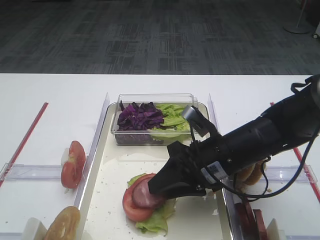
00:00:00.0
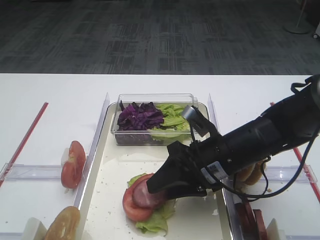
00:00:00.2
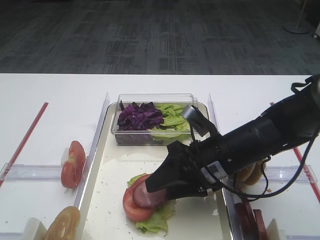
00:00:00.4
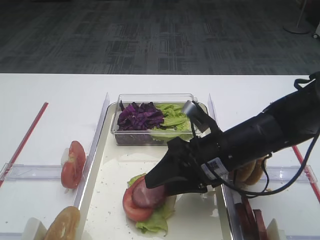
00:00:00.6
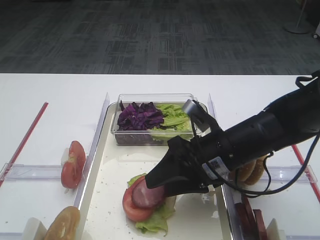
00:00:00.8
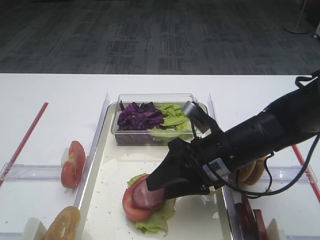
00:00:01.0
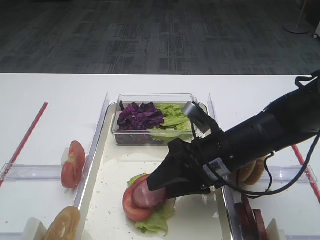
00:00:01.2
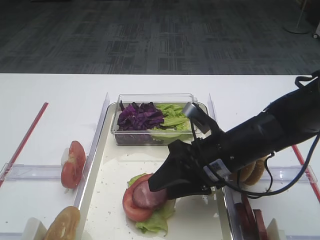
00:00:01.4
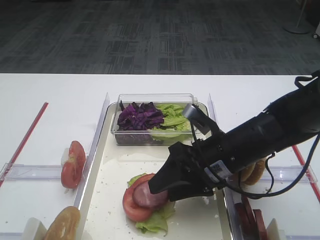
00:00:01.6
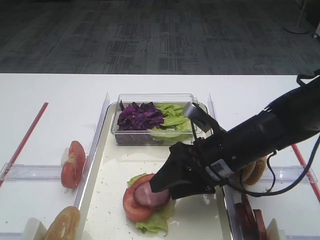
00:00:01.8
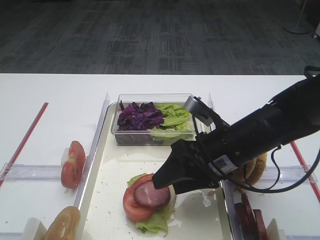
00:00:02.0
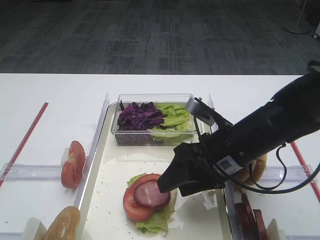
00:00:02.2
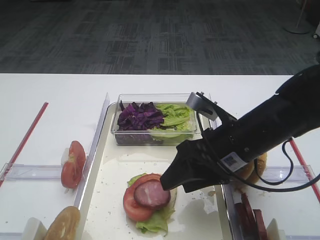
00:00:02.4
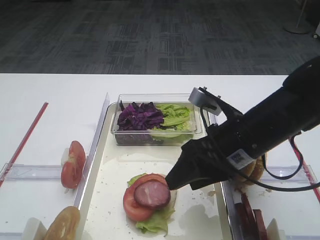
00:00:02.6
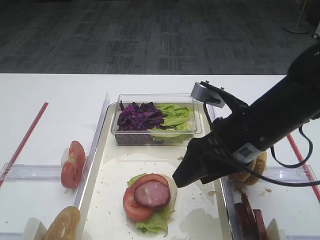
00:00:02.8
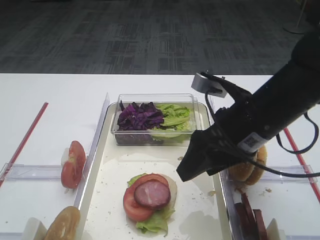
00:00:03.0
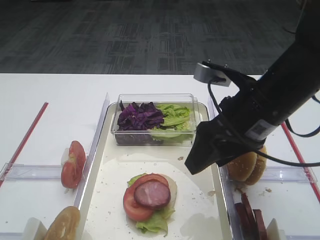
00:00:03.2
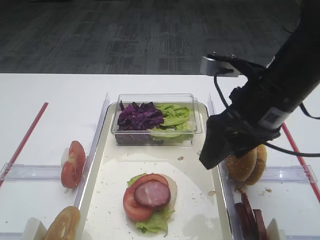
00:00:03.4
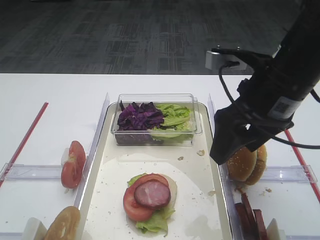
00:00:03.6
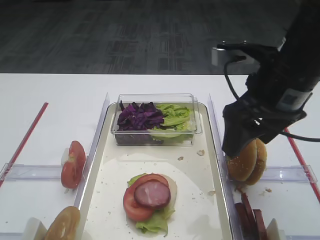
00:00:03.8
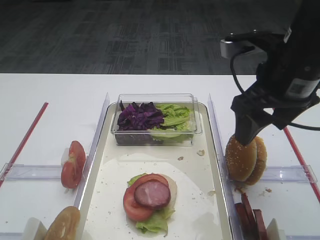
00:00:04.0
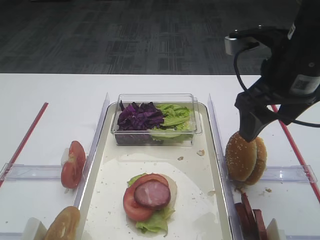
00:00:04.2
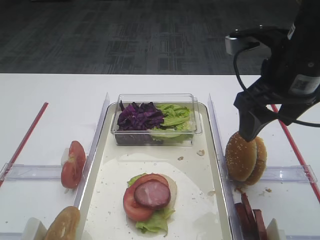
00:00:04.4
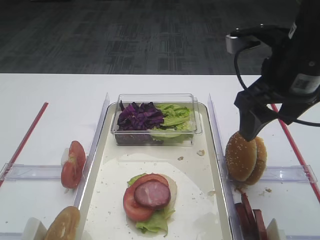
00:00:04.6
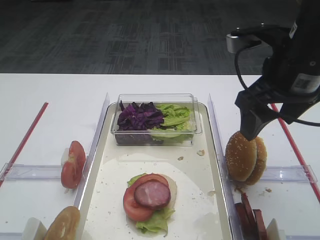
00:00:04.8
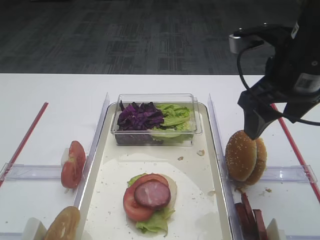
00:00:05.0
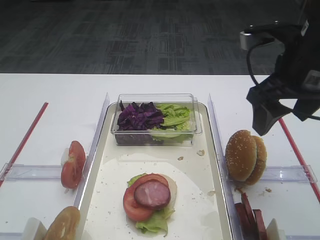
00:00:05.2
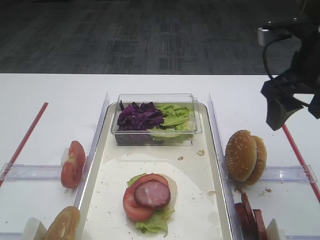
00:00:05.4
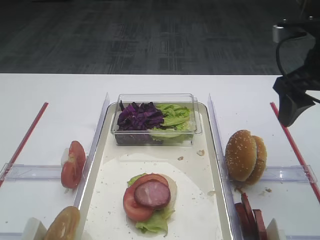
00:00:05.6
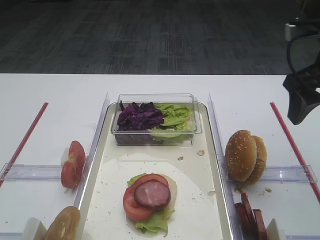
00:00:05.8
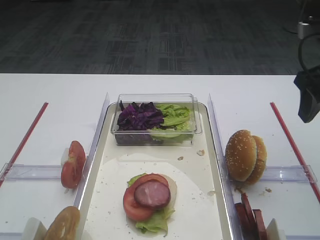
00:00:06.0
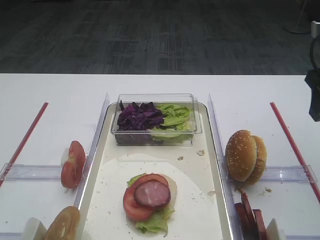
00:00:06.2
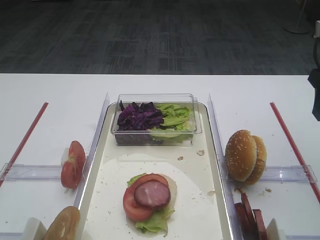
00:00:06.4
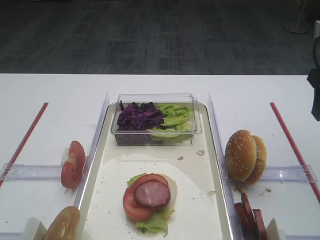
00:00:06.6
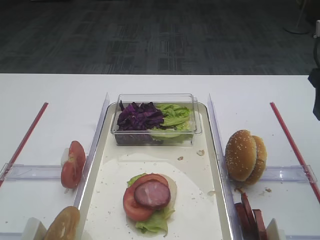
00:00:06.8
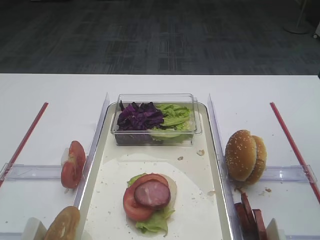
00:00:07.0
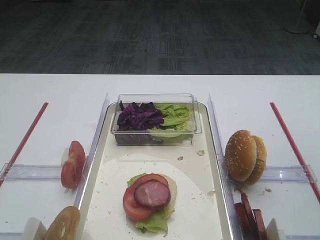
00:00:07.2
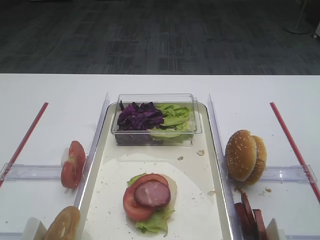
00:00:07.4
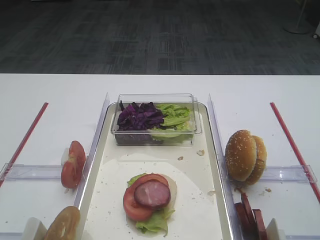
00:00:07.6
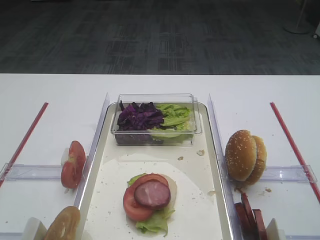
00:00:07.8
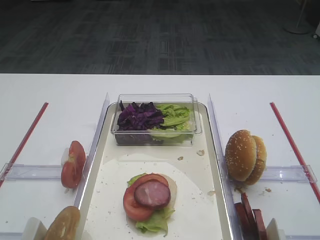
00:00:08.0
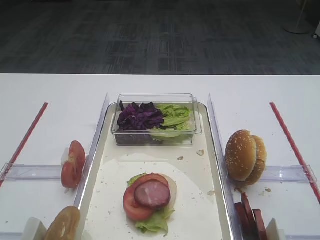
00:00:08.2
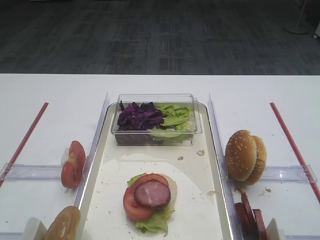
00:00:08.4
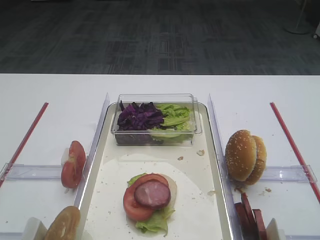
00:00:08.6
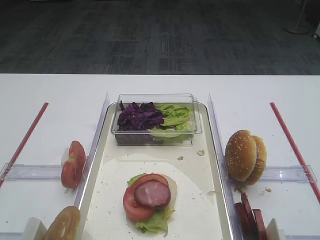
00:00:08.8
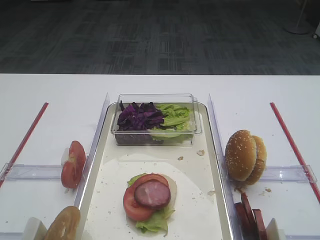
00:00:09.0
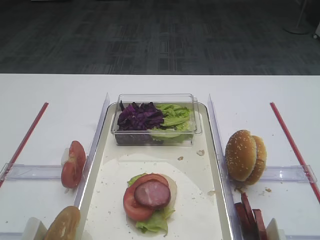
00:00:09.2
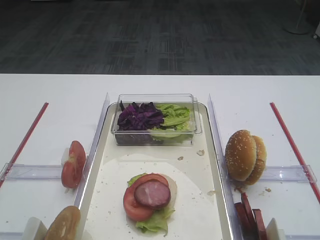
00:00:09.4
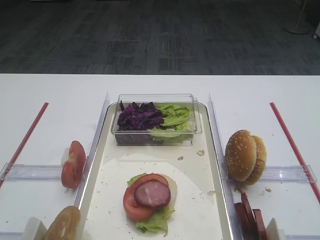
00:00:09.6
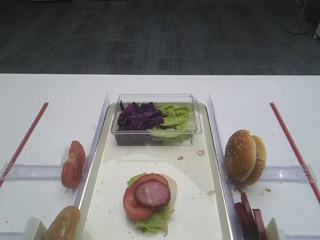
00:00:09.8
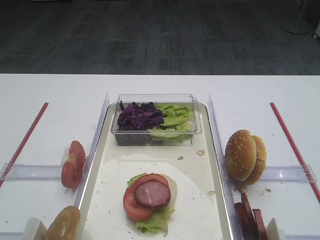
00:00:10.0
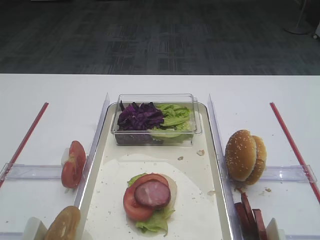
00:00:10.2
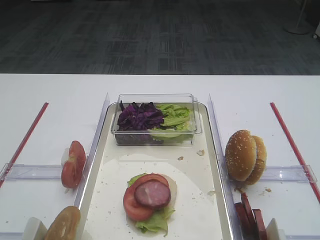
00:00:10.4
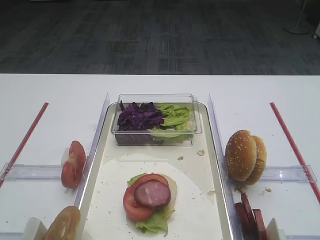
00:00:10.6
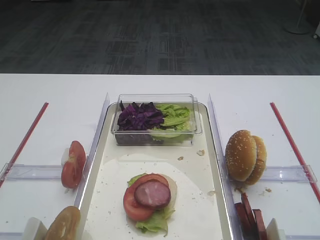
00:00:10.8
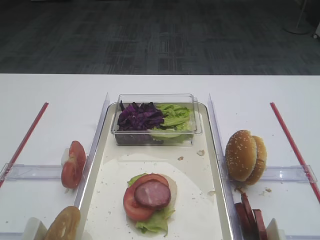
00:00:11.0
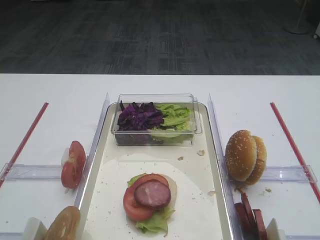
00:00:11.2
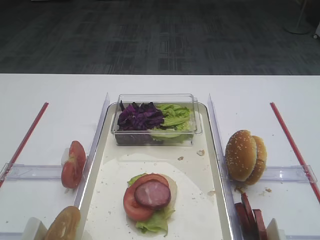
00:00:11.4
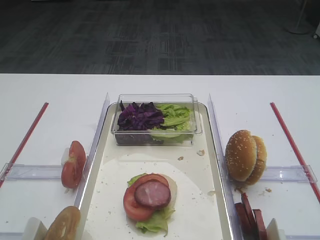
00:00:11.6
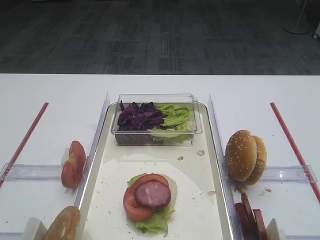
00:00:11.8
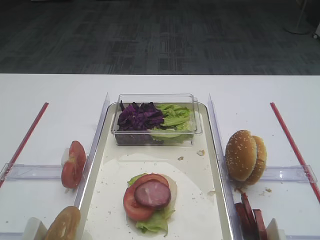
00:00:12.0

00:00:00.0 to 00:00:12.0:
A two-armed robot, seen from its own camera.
Step, 00:00:00.0 to 00:00:02.2: Place the cutlet on the tomato slice with the right gripper.
00:00:00.0 to 00:00:01.6: Both grippers stay about where they are.
00:00:01.6 to 00:00:03.0: The right gripper heads upward, covering some 10 cm.
00:00:03.0 to 00:00:04.4: The right gripper goes roughly 10 cm upward.
00:00:04.4 to 00:00:06.0: The right gripper goes roughly 10 cm to the right.
00:00:06.0 to 00:00:07.6: The right gripper goes roughly 10 cm backward.
00:00:10.4 to 00:00:12.0: The two grippers keep their place.

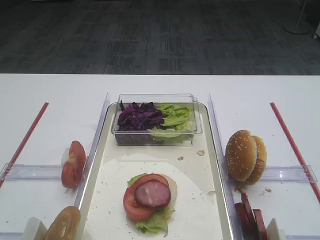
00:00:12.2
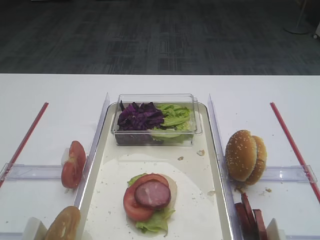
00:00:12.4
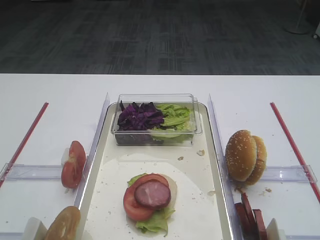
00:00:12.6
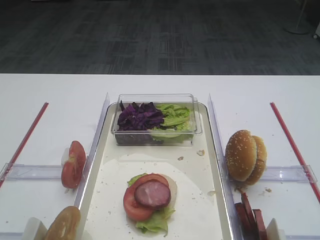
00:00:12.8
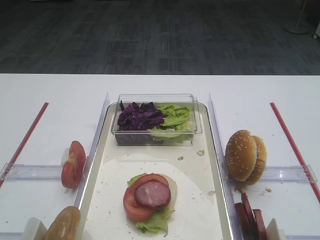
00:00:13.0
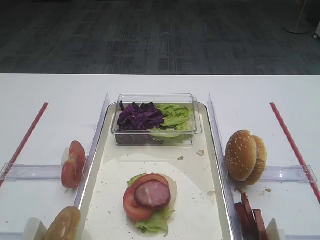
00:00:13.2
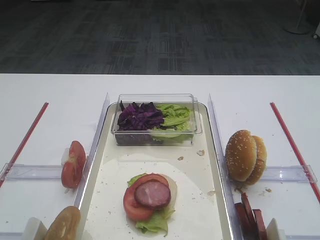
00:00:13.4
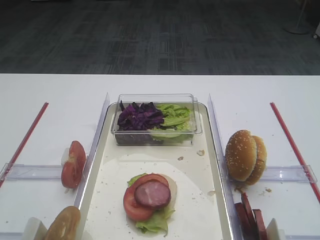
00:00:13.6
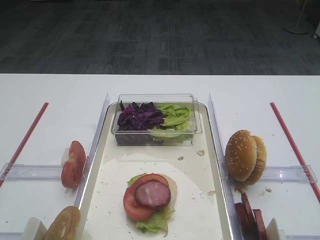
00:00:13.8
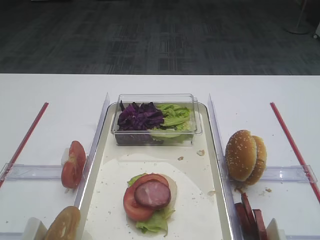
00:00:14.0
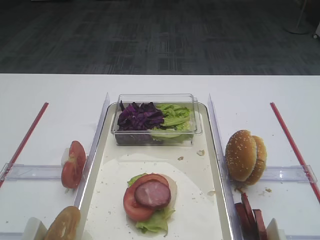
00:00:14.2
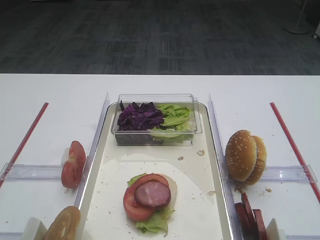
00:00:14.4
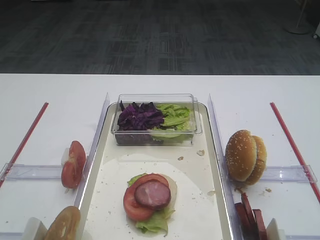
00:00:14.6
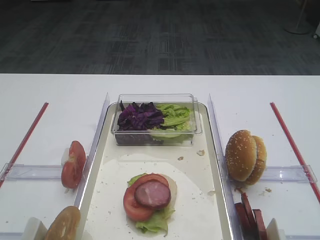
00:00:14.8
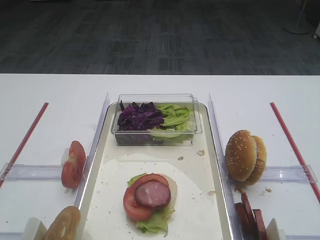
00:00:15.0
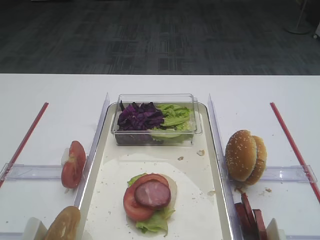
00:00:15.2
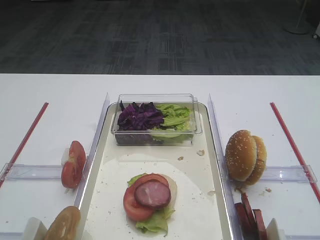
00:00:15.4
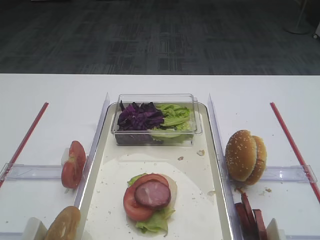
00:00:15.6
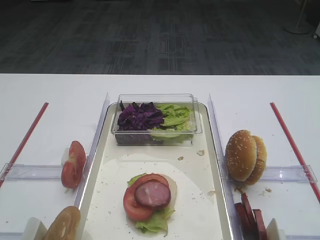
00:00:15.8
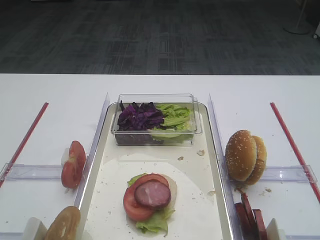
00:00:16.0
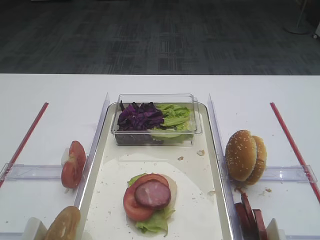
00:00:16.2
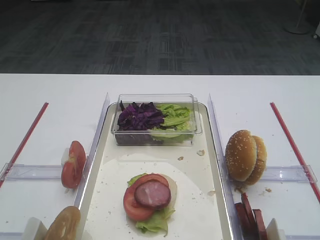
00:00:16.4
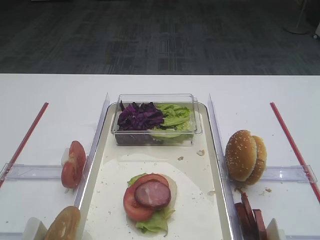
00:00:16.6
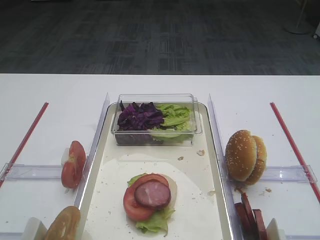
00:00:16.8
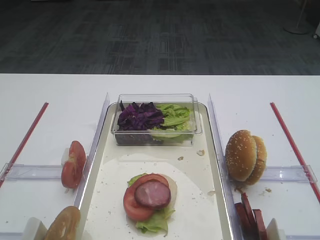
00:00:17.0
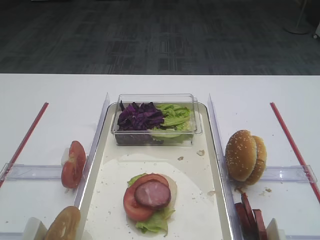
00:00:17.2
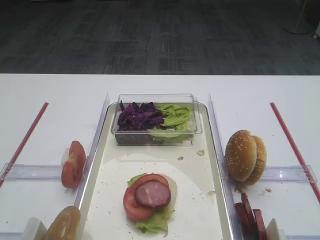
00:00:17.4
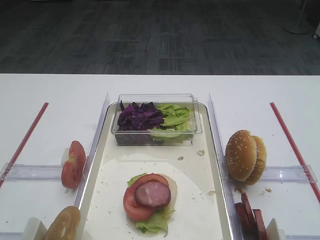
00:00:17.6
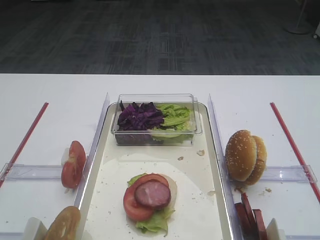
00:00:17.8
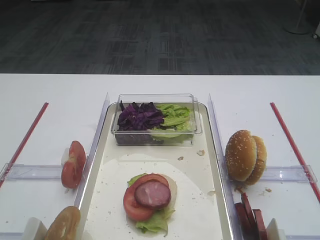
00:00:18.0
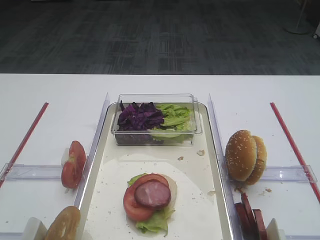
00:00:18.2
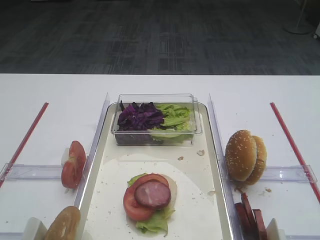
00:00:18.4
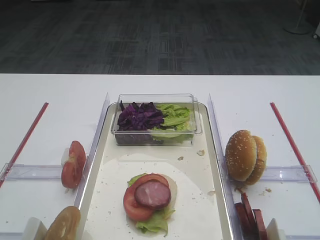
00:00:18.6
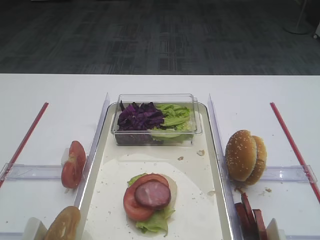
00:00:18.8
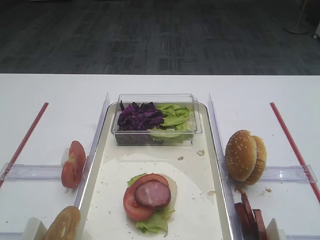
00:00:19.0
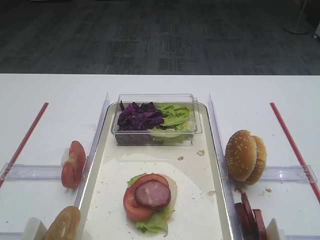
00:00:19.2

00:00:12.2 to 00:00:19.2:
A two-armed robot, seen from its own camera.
00:00:12.2 to 00:00:13.6: Both grippers stay put.
00:00:15.0 to 00:00:19.2: The two grippers keep their place.

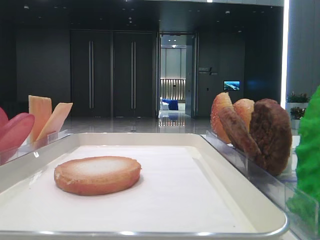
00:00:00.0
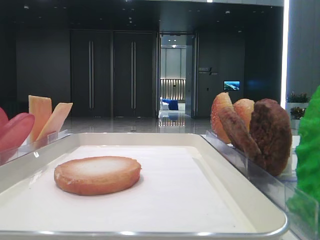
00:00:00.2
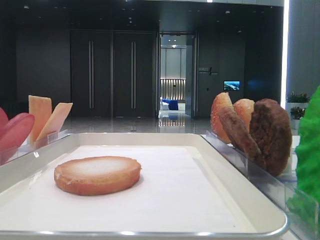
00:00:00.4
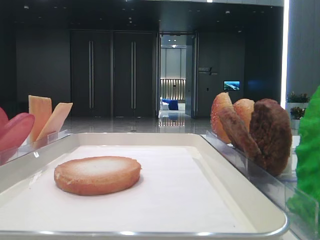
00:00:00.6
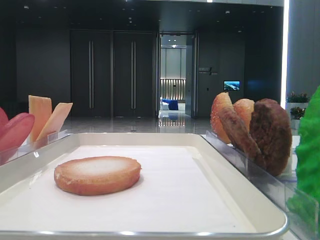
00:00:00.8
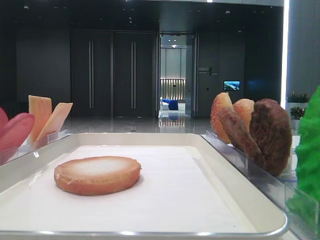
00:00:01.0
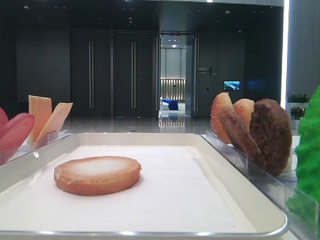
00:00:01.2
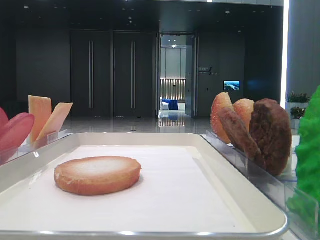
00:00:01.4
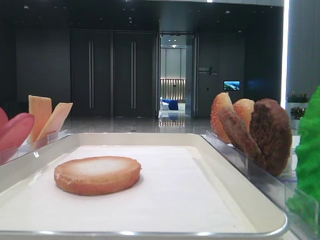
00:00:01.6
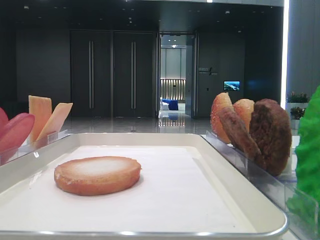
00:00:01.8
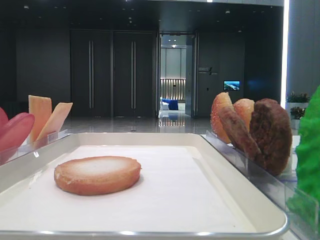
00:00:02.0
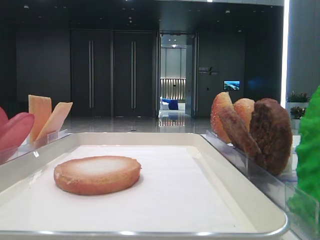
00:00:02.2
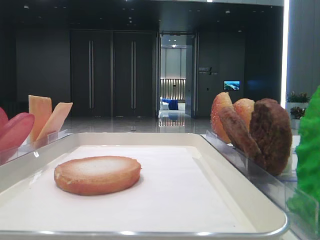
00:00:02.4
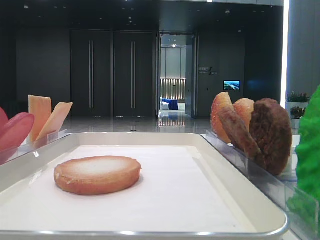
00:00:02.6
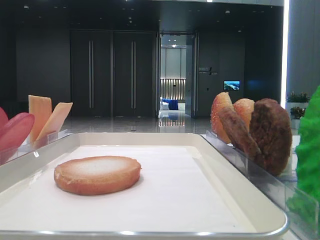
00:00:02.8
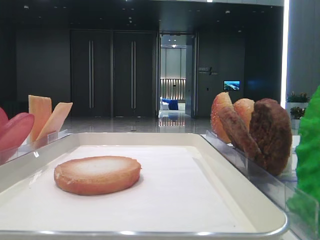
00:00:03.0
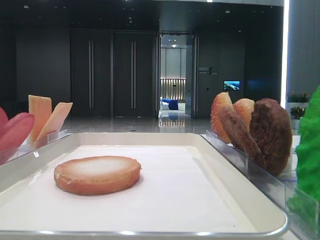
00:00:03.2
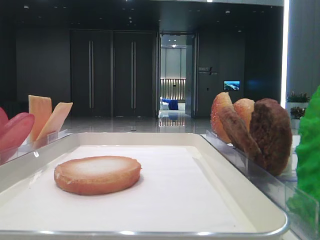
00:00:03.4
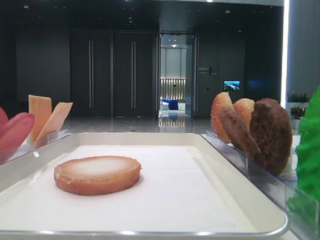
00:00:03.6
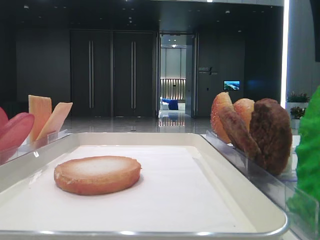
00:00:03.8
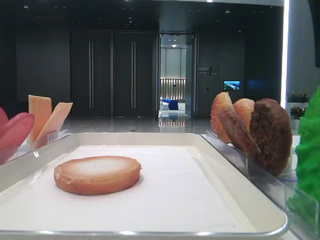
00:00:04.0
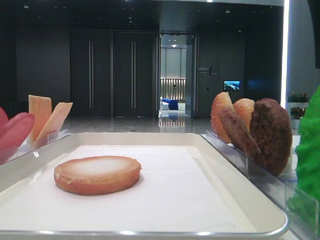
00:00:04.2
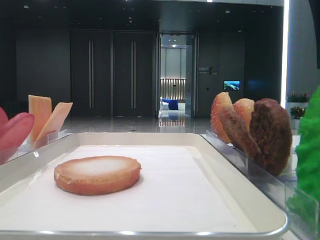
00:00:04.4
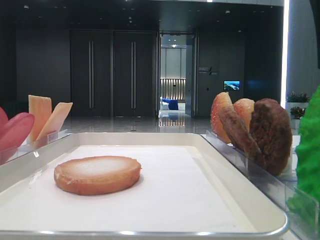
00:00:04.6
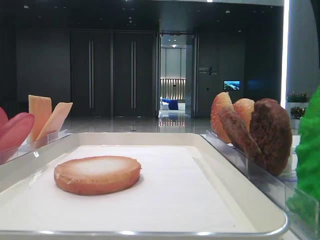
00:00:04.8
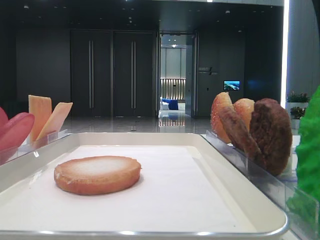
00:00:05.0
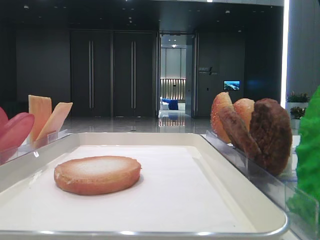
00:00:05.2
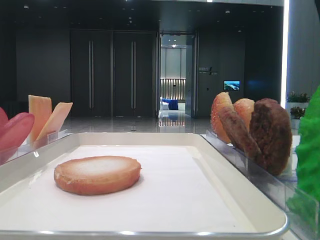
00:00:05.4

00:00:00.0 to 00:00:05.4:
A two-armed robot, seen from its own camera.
00:00:04.0 to 00:00:05.4: Neither gripper changes place.
